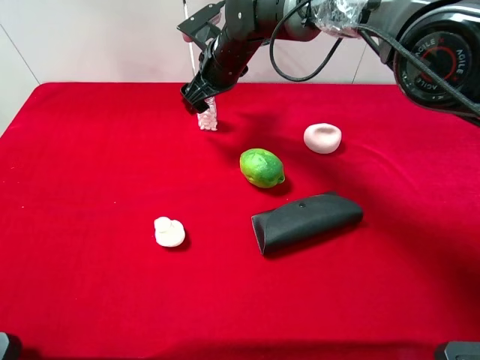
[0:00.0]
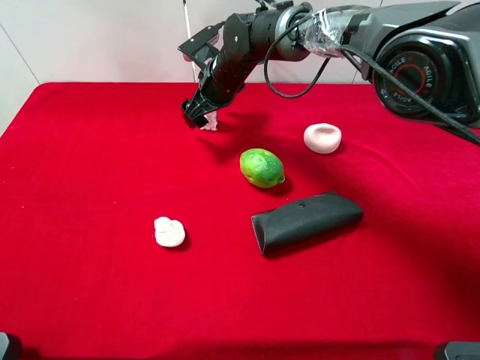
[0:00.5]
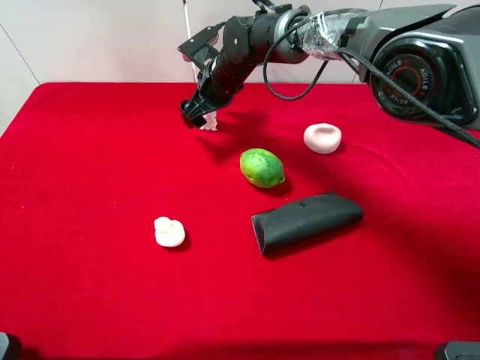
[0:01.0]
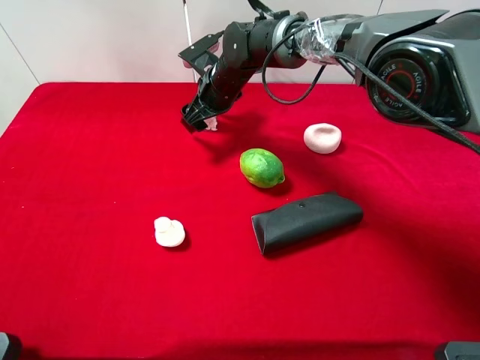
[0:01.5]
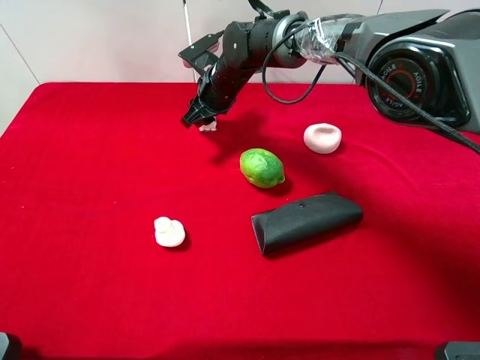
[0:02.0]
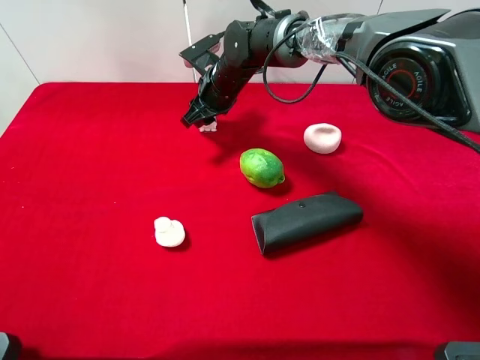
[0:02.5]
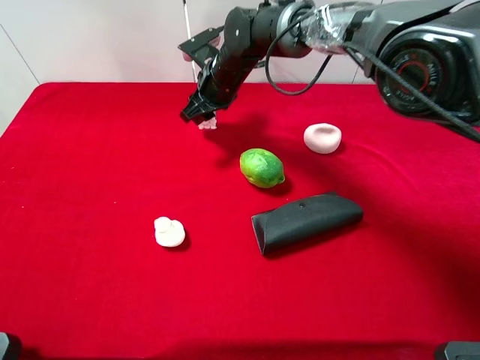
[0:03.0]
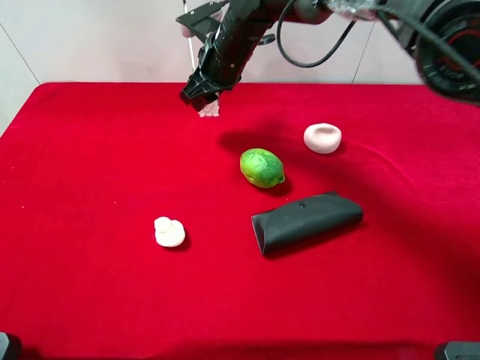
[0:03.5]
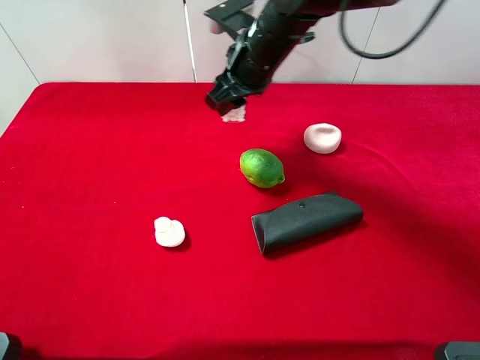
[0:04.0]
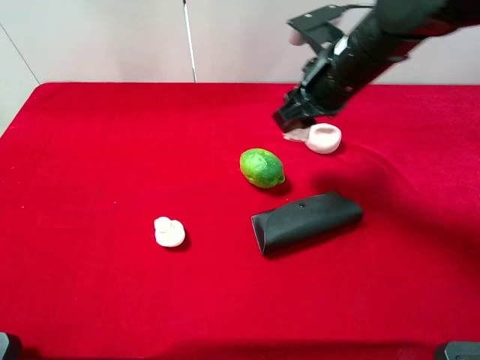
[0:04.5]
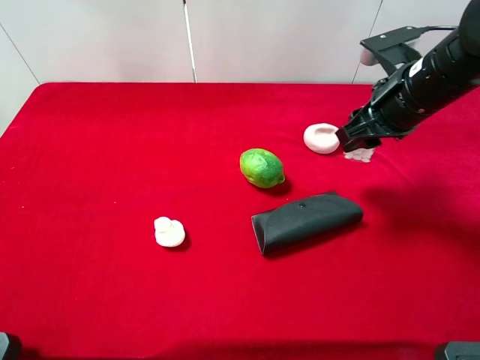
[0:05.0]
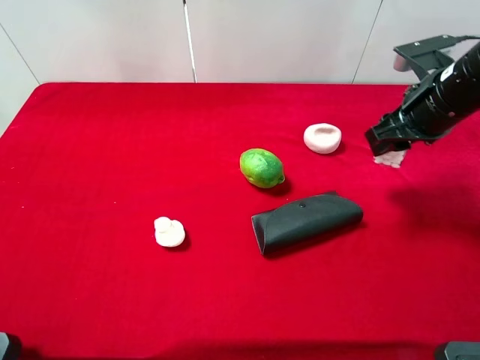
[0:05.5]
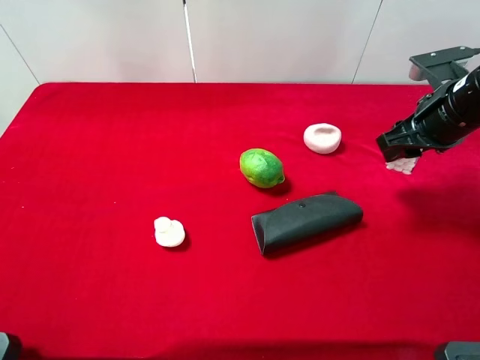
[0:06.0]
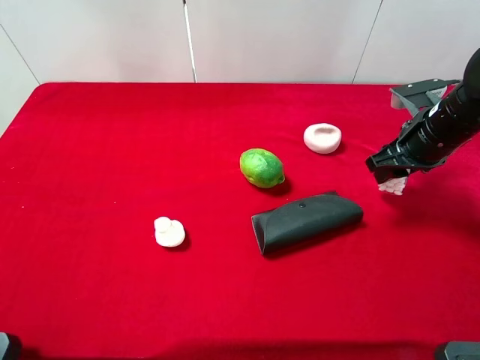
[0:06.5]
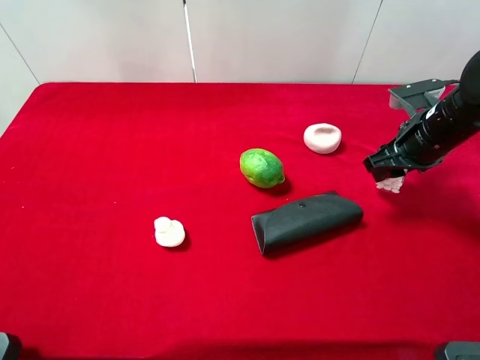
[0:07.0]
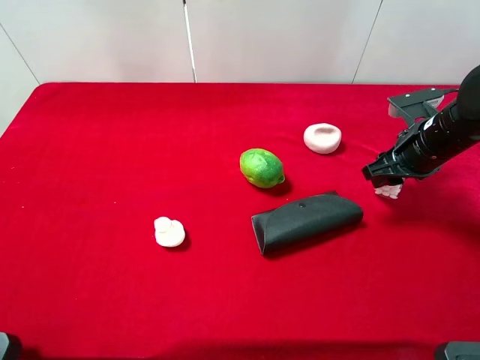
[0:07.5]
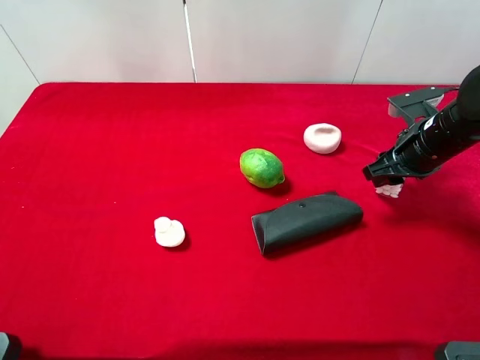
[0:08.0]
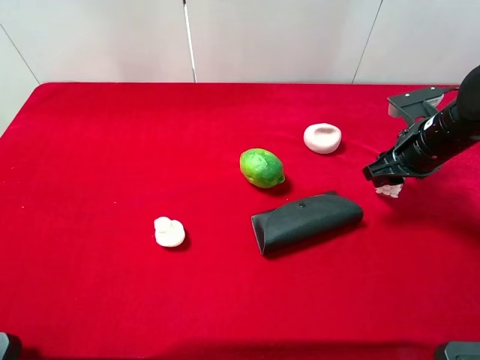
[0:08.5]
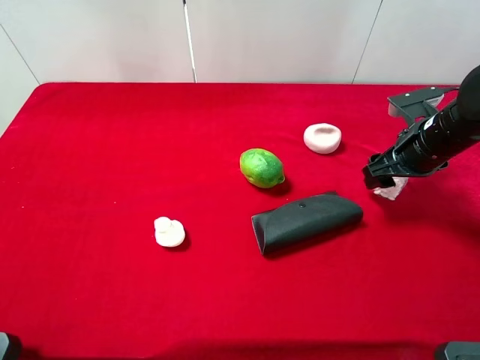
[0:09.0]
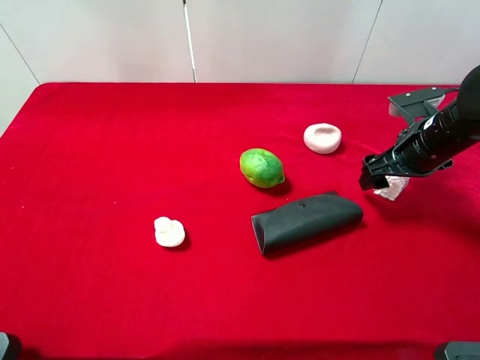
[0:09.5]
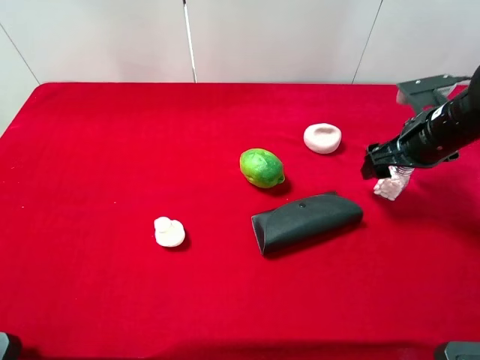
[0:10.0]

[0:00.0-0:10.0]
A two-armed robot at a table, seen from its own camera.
Task of the whole recording: the gripper move the object.
Step, 0:00.0 to 0:02.0: Grasp the mint candy with the right gripper.
0:00.0 to 0:02.0: The right gripper closes up.
0:02.0 to 0:04.0: The right gripper moves upward, backward and to the right, some 15 cm.
0:04.0 to 0:06.0: The right gripper goes approximately 25 cm to the right.
0:06.0 to 0:08.0: The right gripper moves downward, approximately 5 cm.
0:08.0 to 0:10.0: The right gripper opens up.

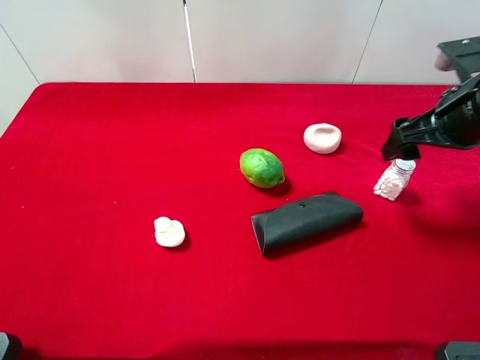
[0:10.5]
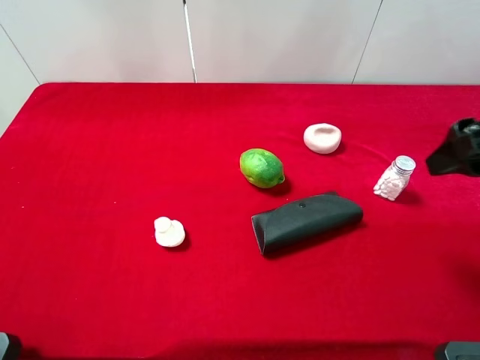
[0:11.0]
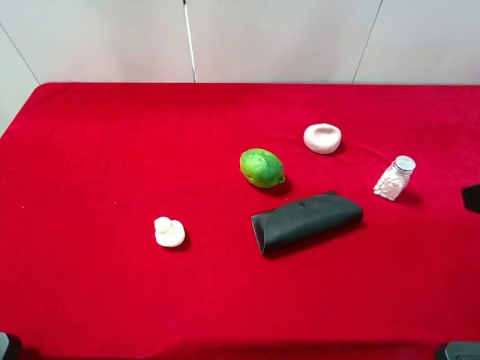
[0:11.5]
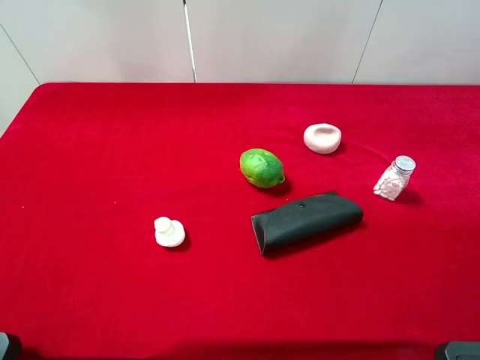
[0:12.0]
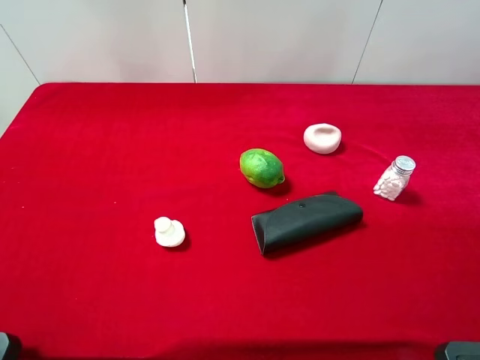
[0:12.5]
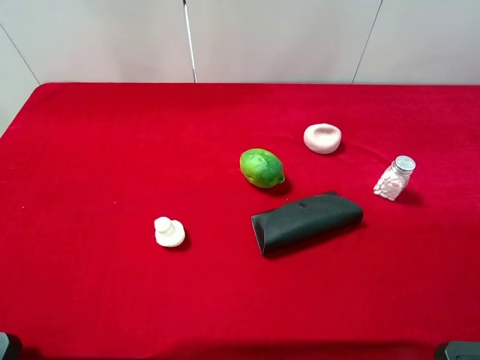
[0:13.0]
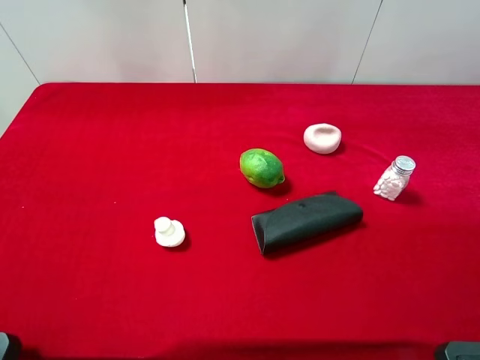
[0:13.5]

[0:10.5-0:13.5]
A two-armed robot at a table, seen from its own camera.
Task of the whole recording: the gripper move the object.
0:10.5 to 0:12.0: The right gripper travels backward by about 20 cm.

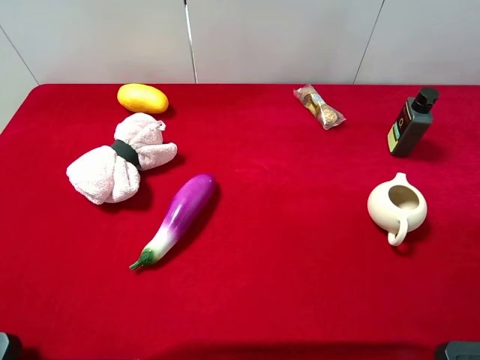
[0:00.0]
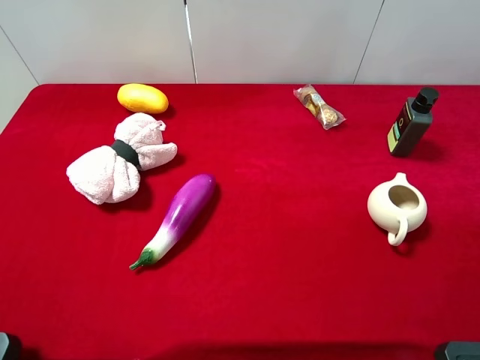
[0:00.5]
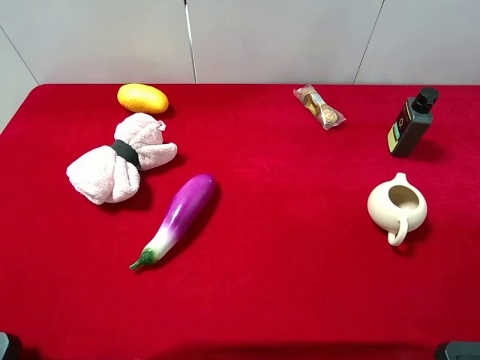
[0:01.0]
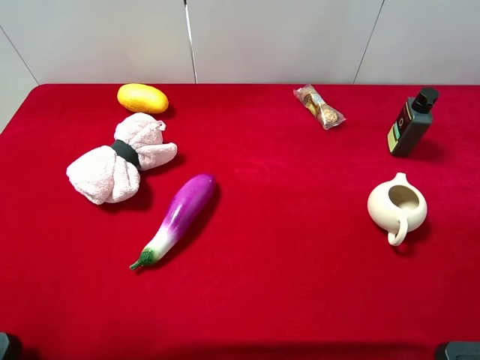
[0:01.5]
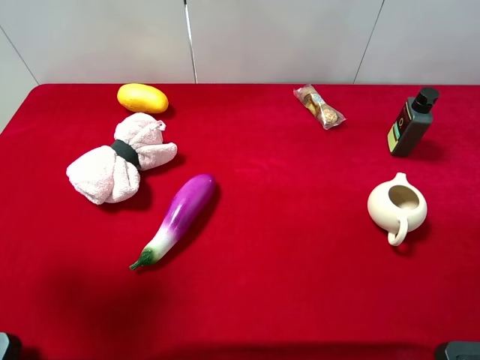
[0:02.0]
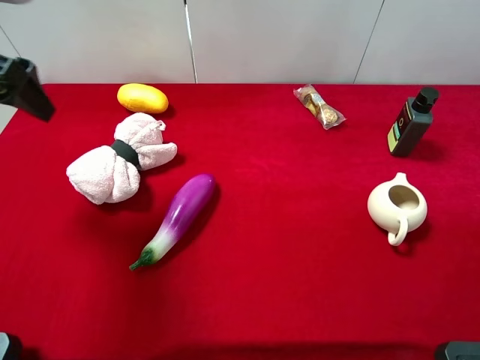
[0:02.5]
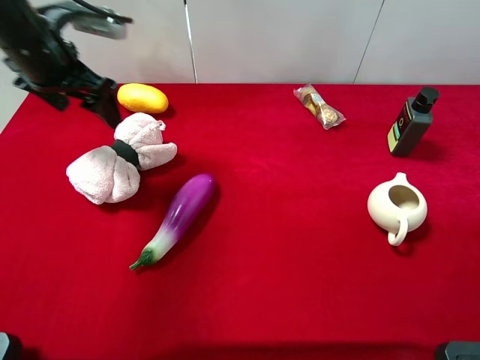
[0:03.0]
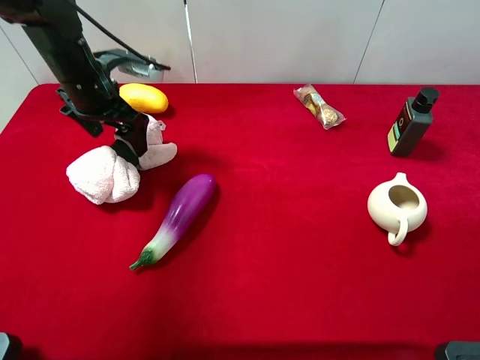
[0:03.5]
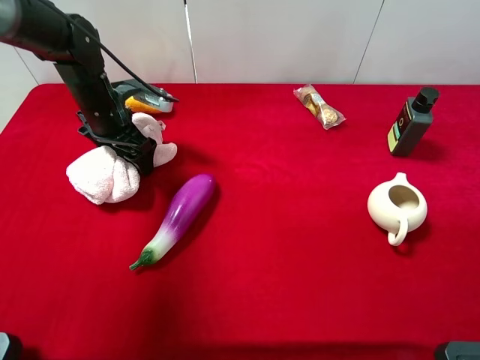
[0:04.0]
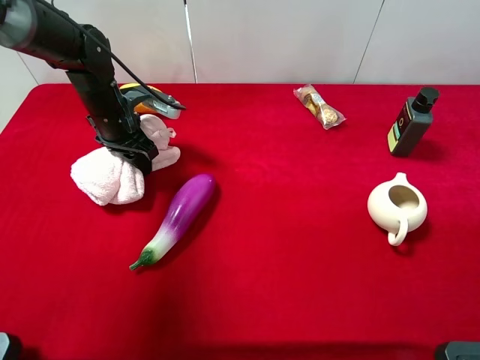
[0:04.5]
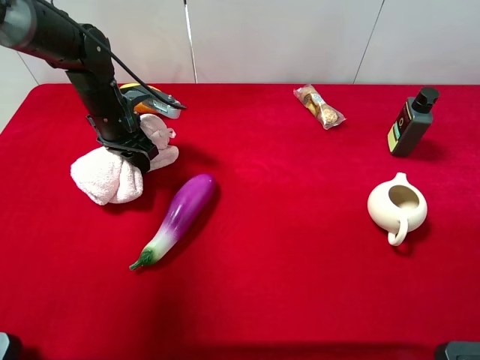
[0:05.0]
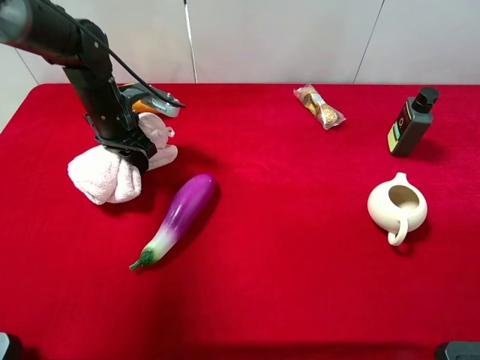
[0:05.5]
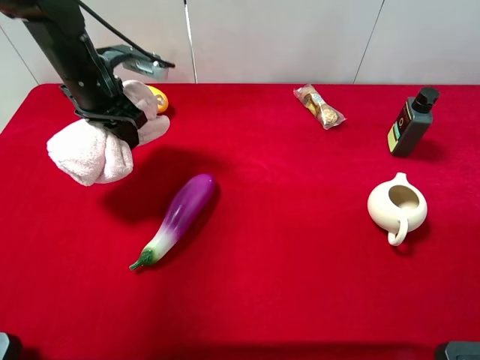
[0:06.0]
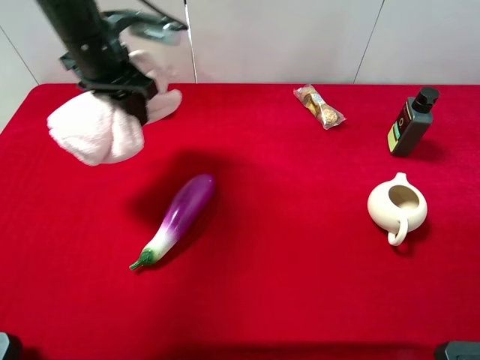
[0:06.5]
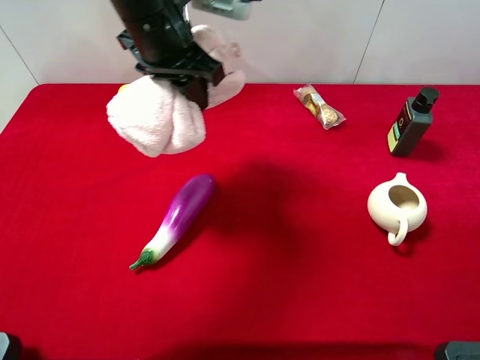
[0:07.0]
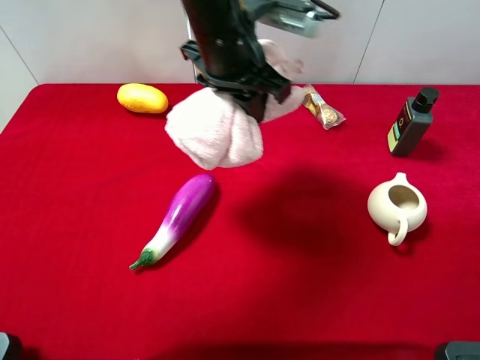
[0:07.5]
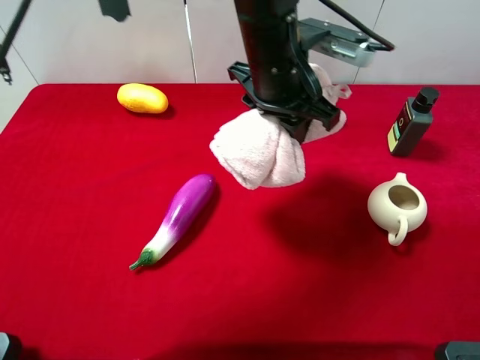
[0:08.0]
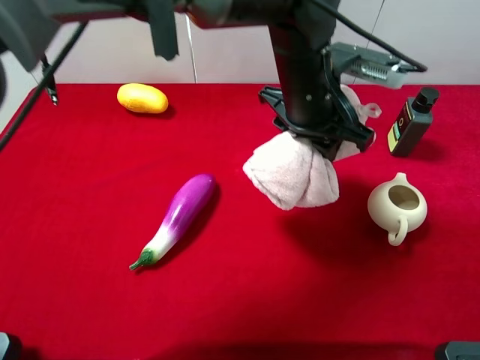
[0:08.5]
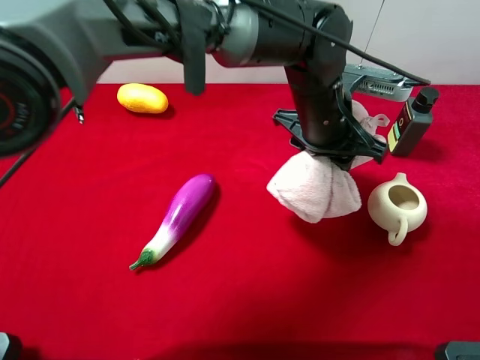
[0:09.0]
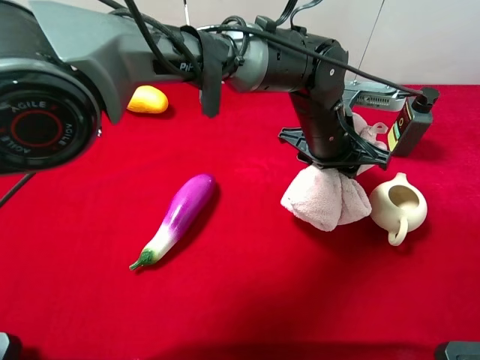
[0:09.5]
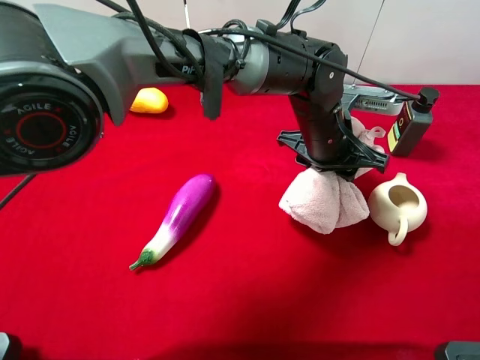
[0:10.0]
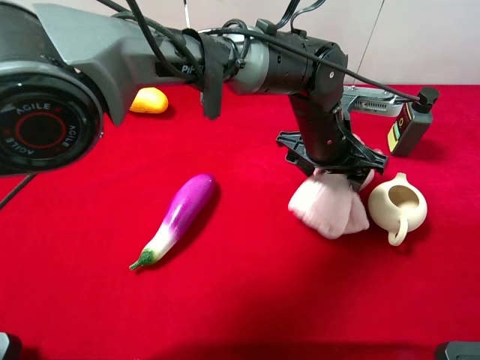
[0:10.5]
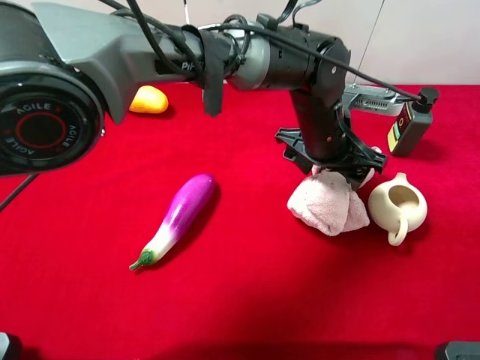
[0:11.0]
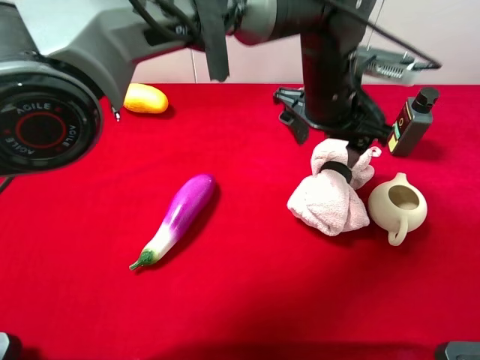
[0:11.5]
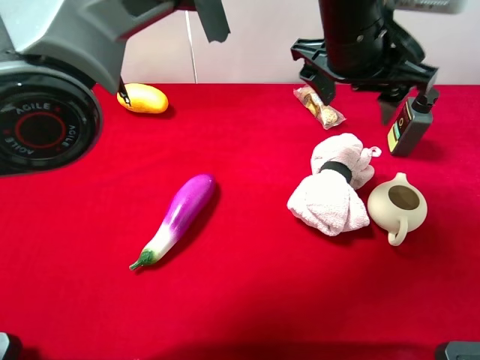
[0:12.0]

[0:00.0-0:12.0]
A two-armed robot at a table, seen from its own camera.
Task of the whole recording: the gripper move the object.
Step, 0:00.0 to 0:05.0: Grasp the pink towel with the left gripper.
Step, 0:05.5 to 0:11.5: Place the pink towel on the table with the left gripper.
0:02.0 to 0:04.0: The left gripper travels forward, downward and to the right by roughly 30 cm.
0:04.0 to 0:06.0: The left gripper closes.
0:06.0 to 0:08.0: The left gripper travels to the right by some 25 cm.
0:08.0 to 0:10.0: The left gripper heads downward and to the right, covering approximately 10 cm.
0:10.0 to 0:12.0: The left gripper travels upward by some 10 cm, and opens up.
